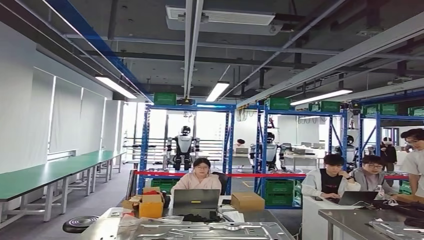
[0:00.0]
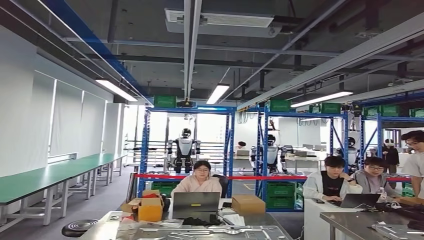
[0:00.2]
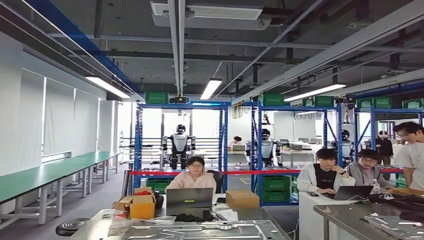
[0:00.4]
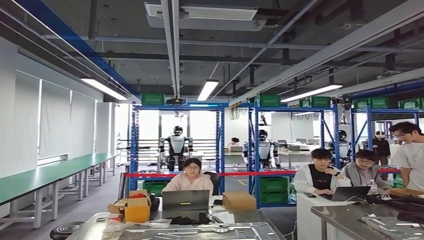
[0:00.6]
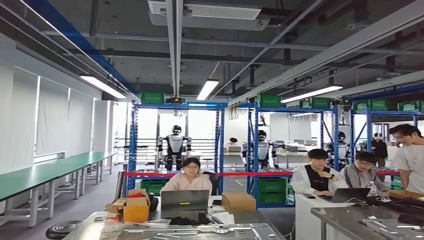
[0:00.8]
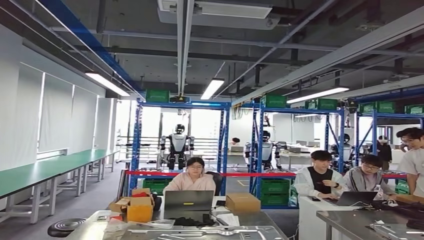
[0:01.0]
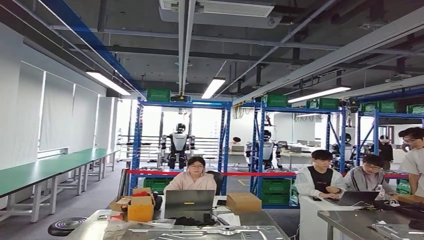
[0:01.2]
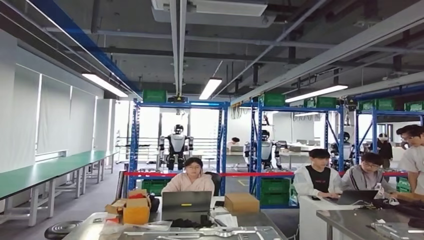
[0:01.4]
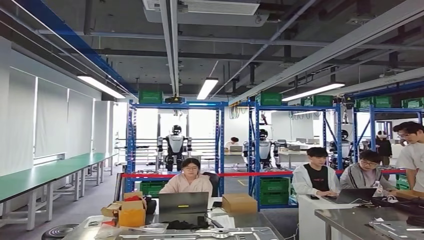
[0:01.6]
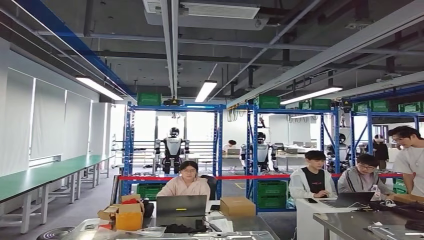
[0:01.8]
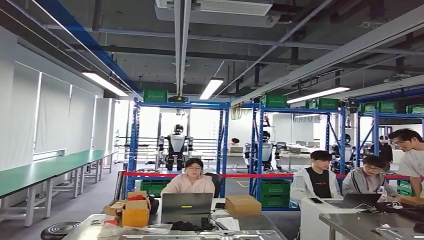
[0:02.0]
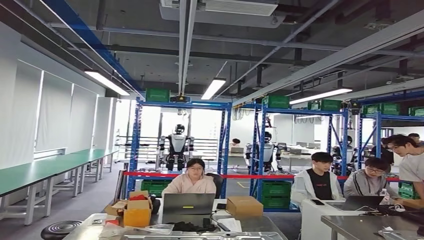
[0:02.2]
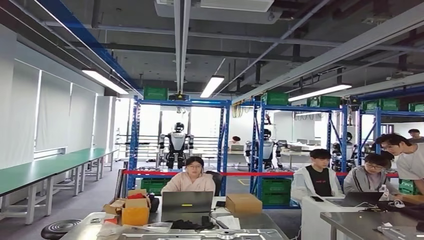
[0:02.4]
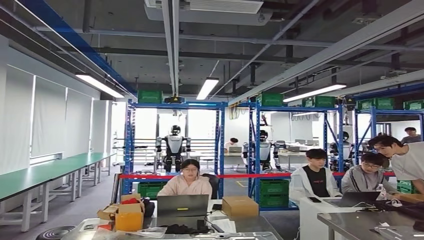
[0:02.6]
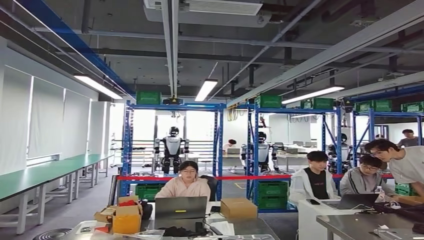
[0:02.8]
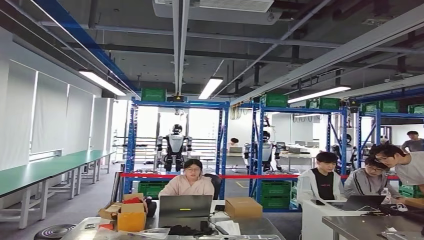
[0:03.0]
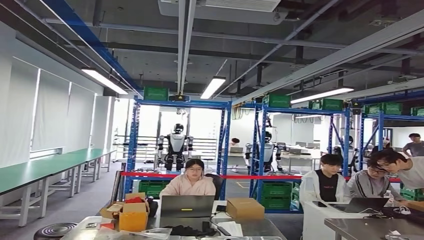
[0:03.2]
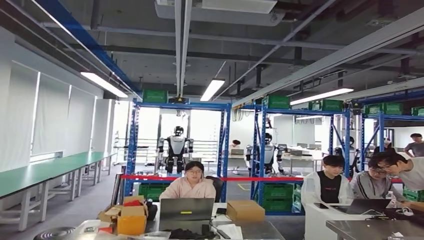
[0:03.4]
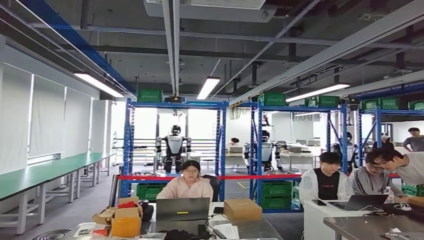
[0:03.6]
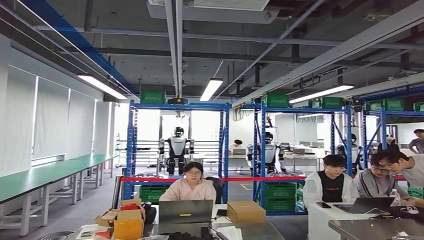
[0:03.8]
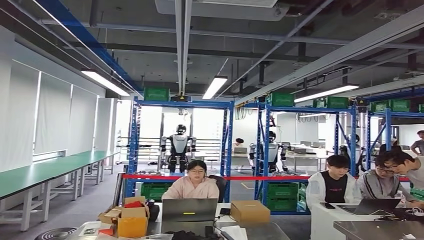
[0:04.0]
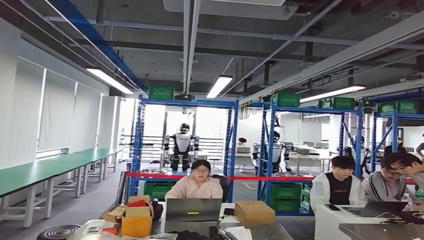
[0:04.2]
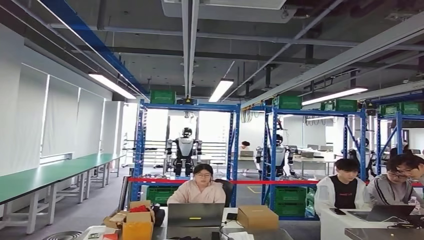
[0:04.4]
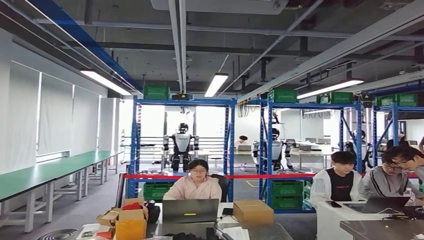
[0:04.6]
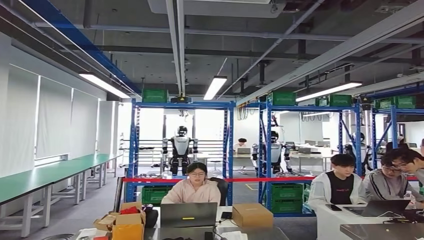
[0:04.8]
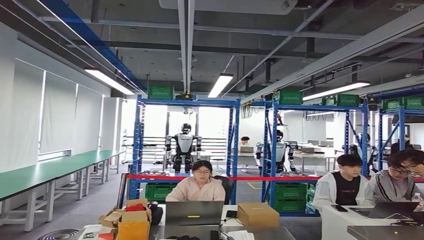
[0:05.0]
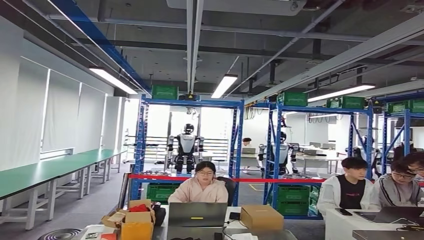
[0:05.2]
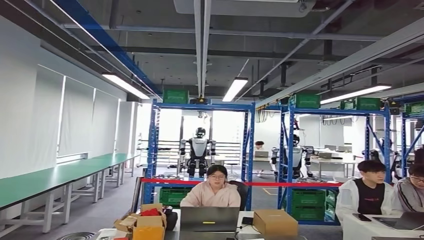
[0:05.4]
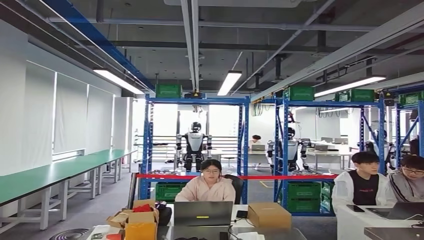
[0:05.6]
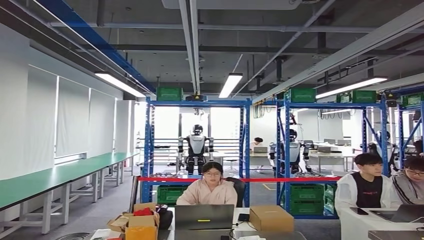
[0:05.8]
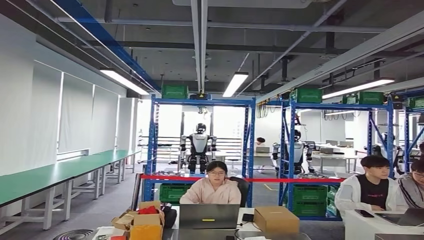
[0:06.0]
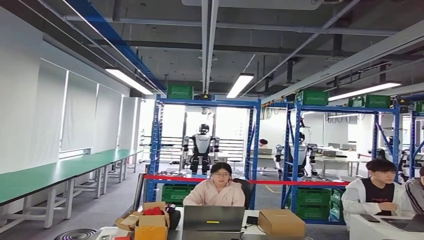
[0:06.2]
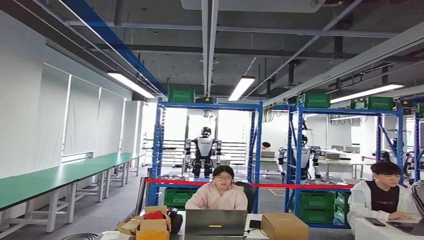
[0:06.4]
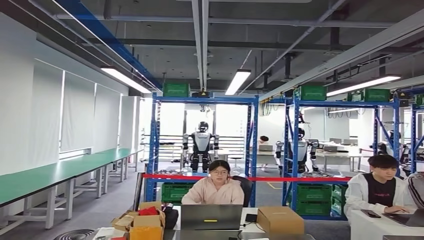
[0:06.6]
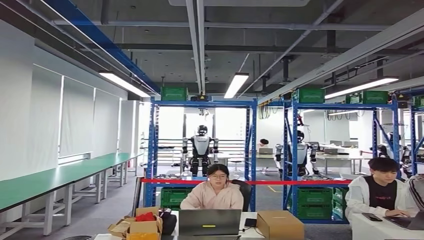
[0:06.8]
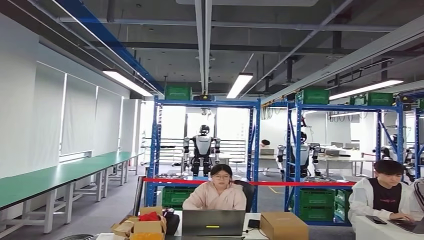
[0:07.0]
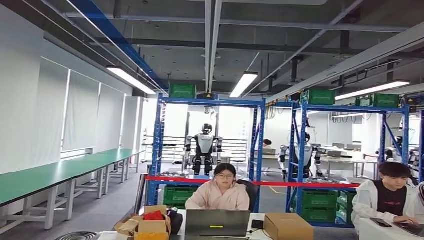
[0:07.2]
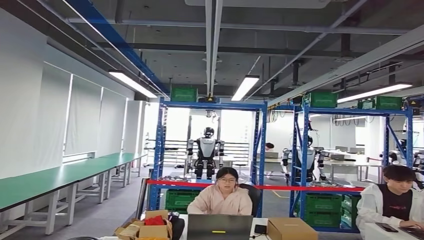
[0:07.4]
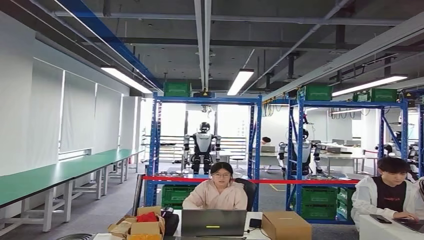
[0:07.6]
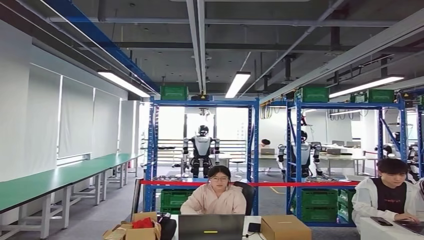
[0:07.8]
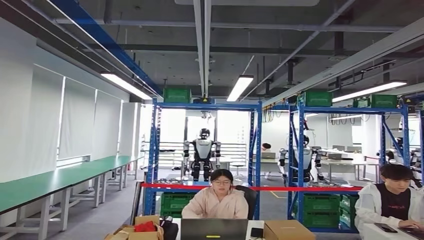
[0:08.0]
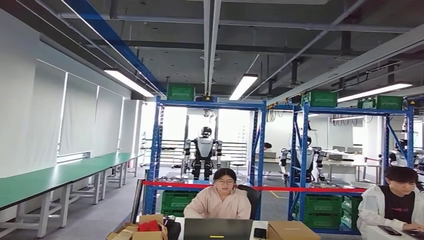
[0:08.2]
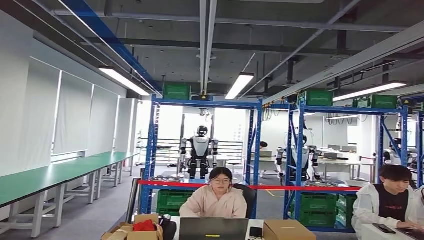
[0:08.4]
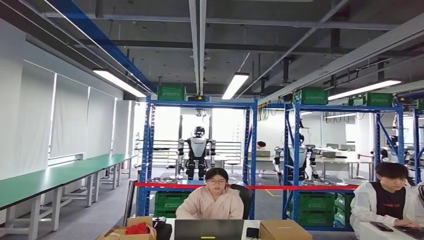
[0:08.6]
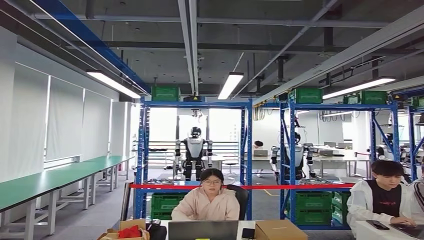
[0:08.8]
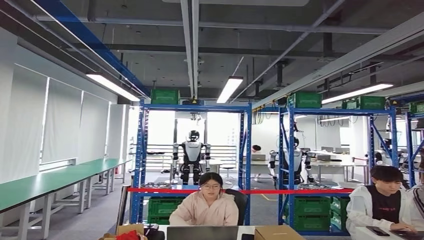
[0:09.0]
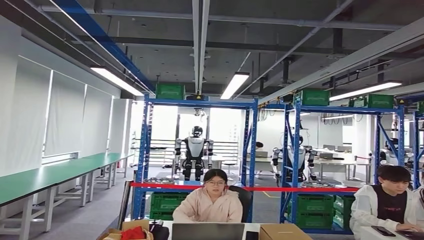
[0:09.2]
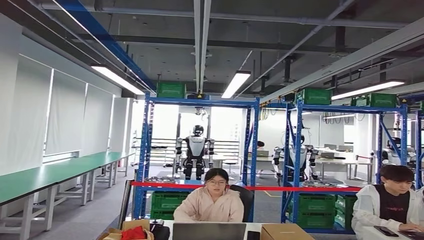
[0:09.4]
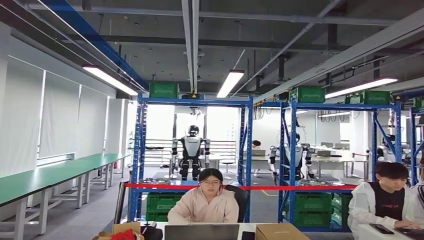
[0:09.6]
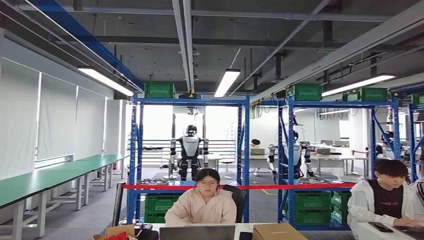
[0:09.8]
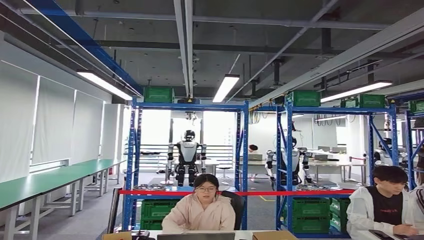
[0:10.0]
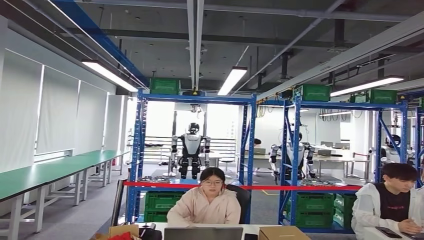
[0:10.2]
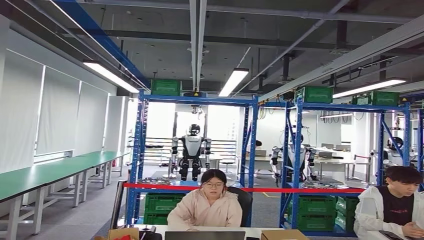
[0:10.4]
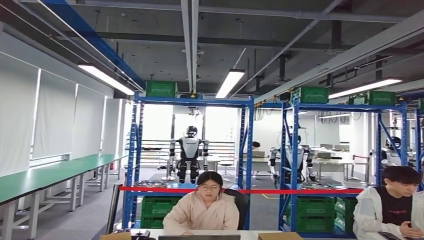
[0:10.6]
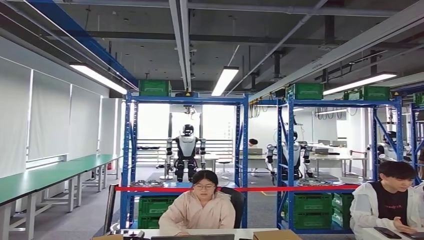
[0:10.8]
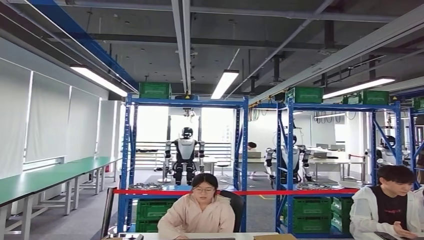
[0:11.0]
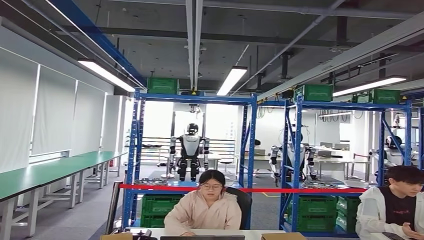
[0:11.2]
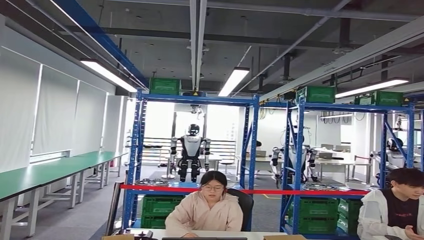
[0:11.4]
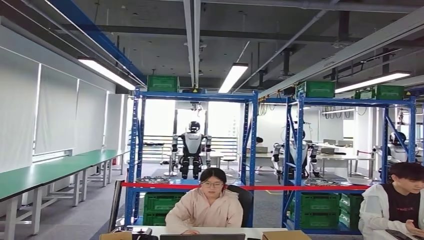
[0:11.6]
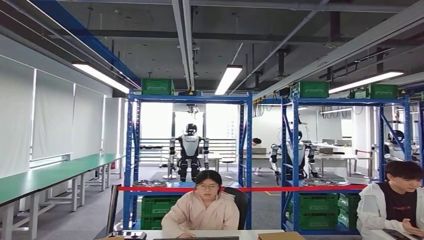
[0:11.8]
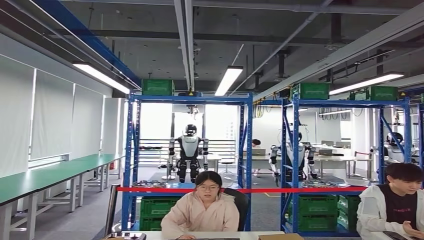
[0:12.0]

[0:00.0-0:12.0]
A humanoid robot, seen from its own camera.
Step, 0:00.0 to 0:11.2: Move the small component to the workbench.

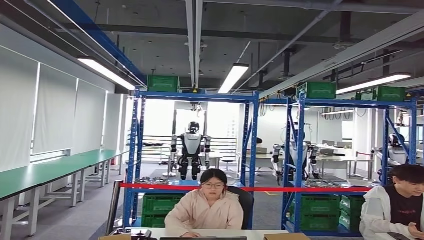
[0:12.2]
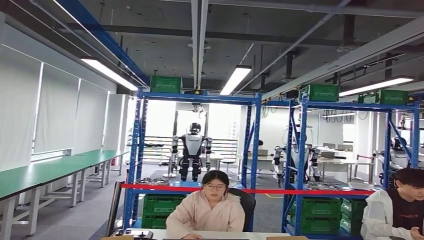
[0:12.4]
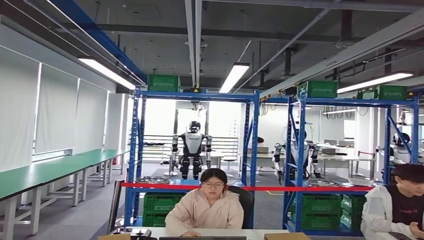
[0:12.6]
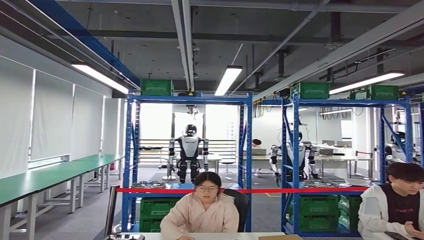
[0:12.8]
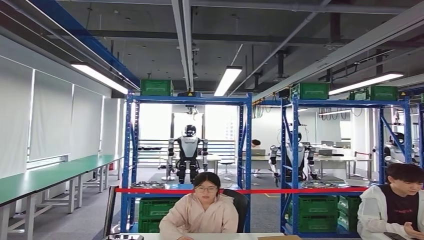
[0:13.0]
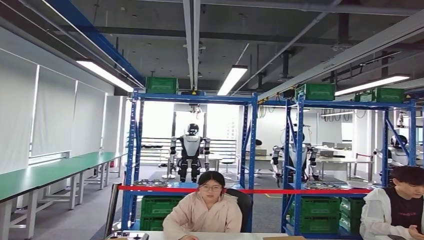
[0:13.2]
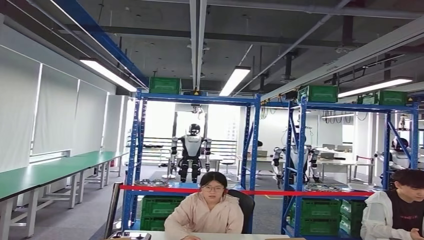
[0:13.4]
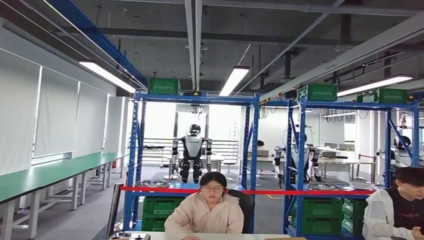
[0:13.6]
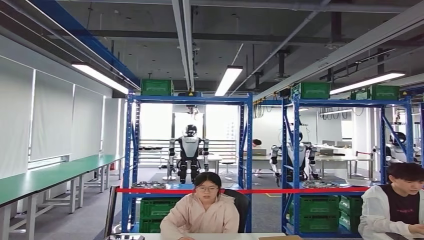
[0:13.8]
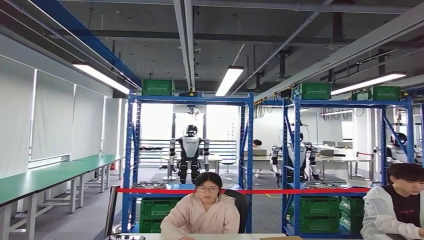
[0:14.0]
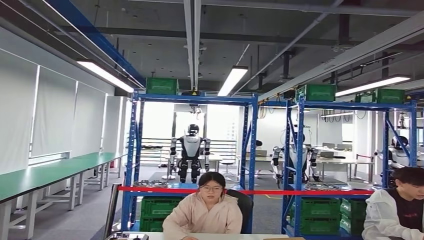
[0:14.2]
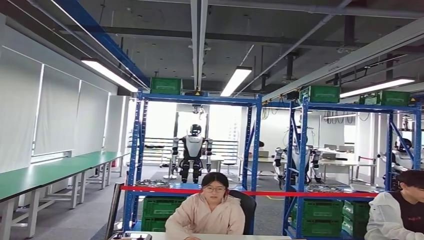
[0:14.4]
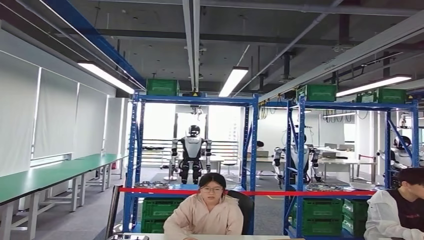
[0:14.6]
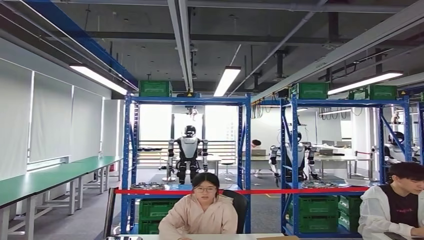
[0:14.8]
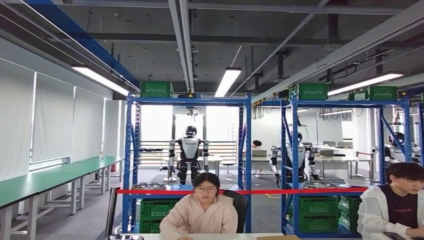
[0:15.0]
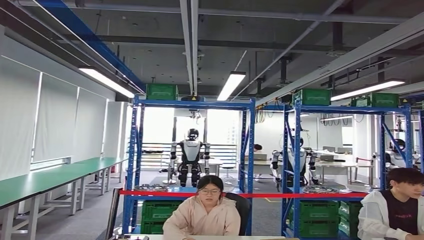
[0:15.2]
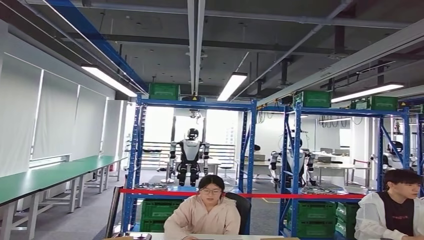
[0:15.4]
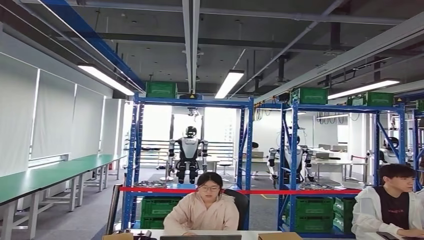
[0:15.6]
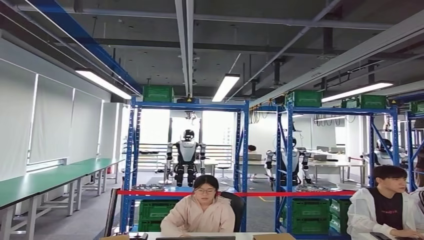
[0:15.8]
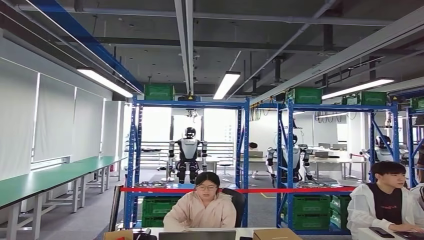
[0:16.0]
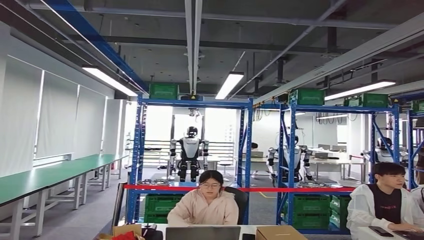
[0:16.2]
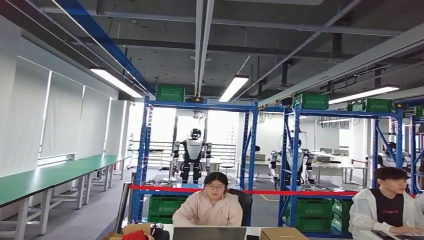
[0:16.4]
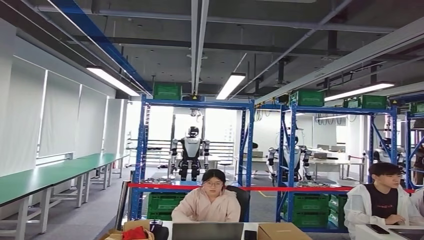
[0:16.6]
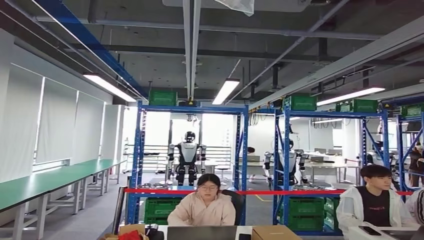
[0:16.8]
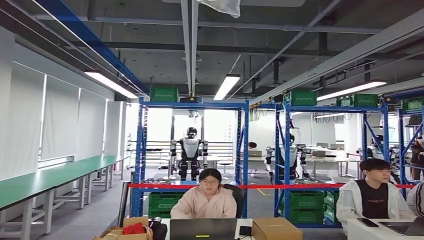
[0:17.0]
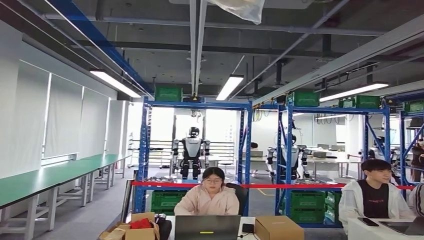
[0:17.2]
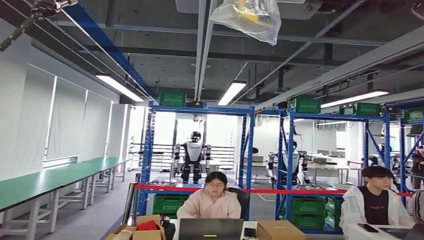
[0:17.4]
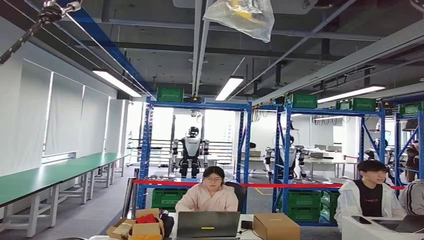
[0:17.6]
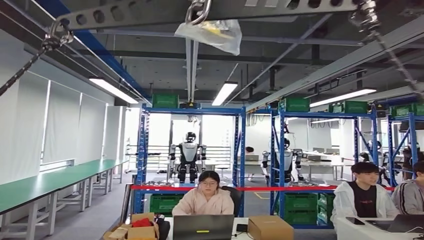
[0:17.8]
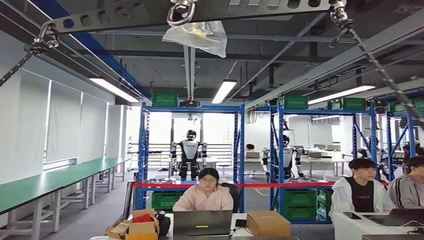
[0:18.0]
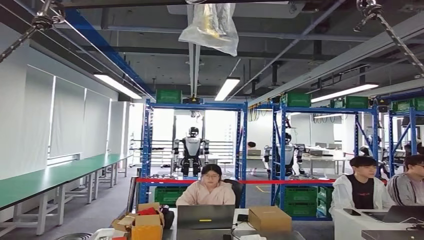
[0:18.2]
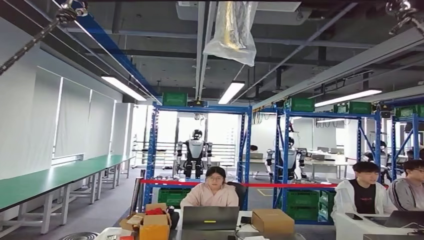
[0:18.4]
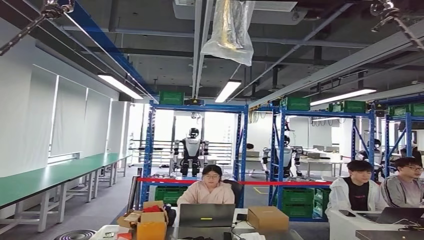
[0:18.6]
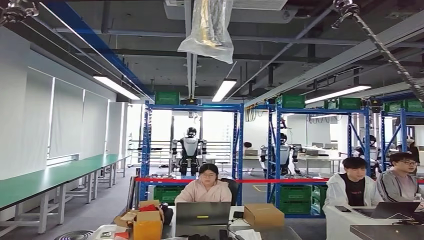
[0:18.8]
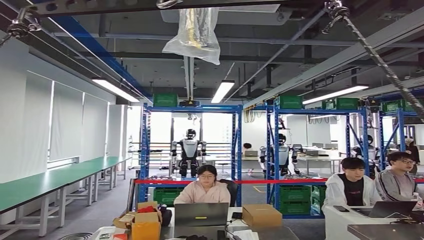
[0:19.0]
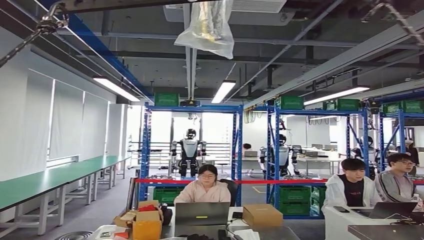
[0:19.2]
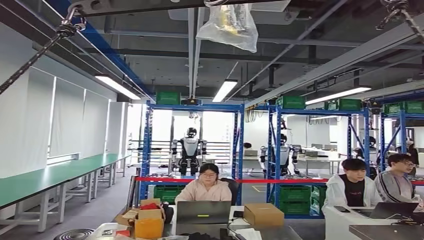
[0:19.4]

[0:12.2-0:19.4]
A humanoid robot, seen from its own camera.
Step, 0:12.2 to 0:15.2: Insert the small component into the corresponding slot on the workbench.
Step, 0:15.4 to 0:19.2: Return to the initial position at the workbench.
